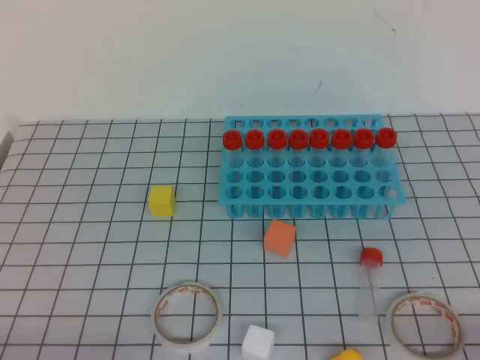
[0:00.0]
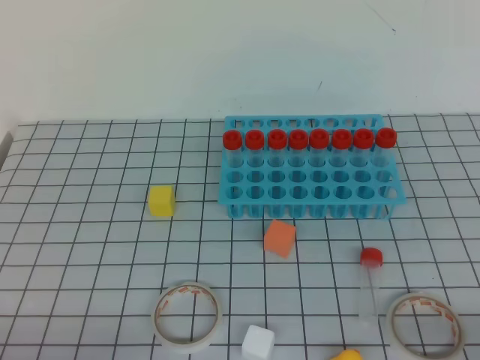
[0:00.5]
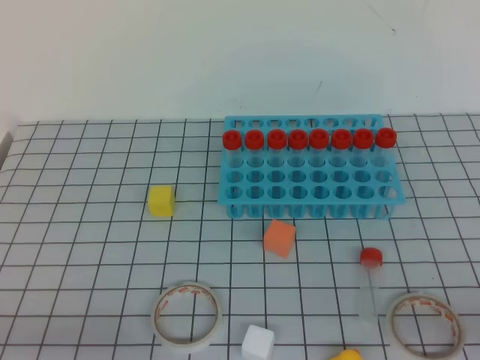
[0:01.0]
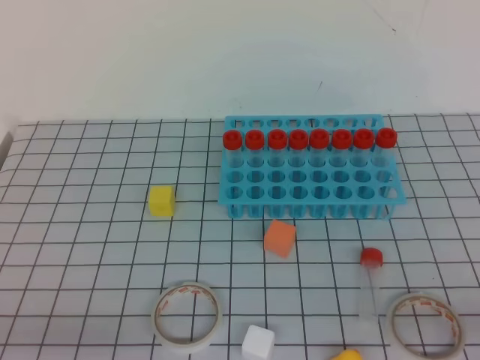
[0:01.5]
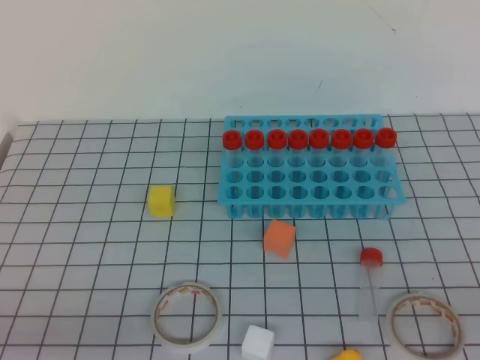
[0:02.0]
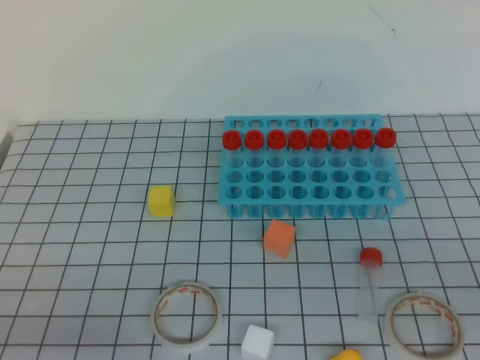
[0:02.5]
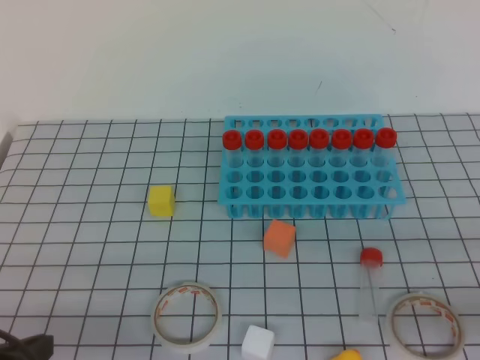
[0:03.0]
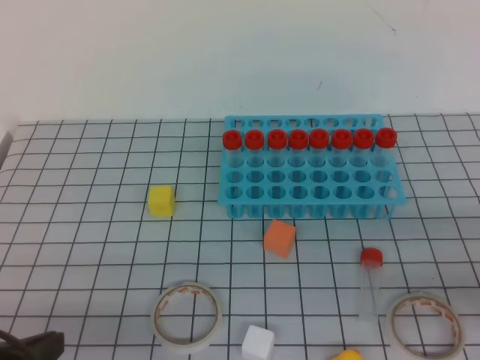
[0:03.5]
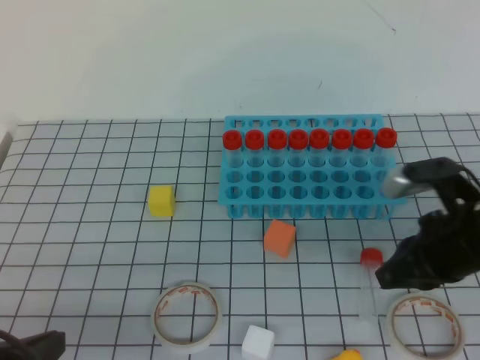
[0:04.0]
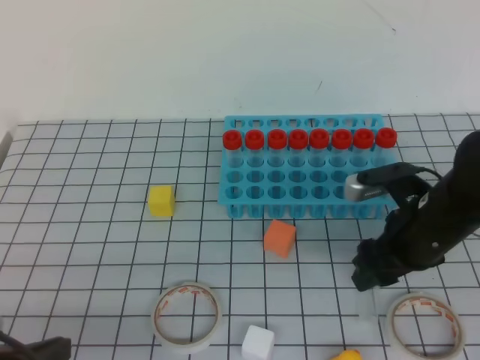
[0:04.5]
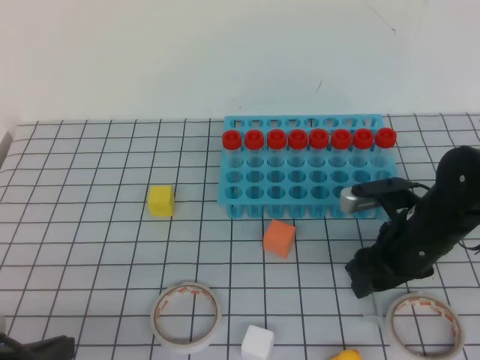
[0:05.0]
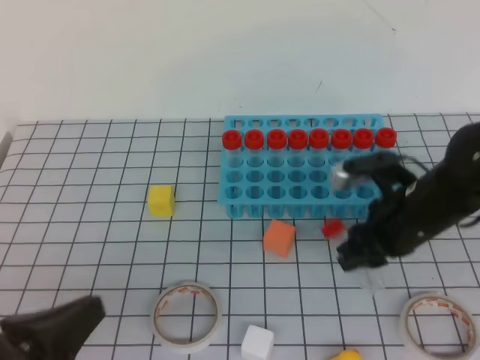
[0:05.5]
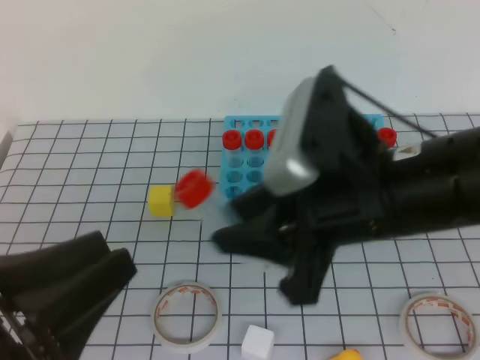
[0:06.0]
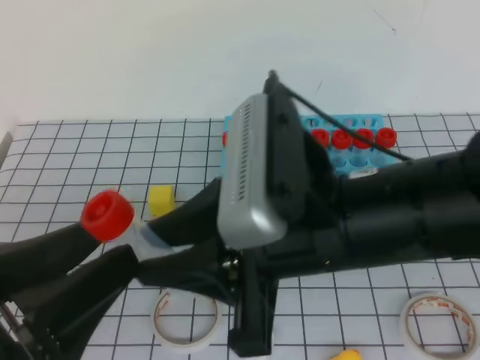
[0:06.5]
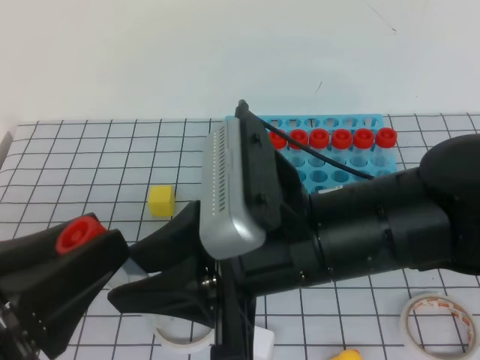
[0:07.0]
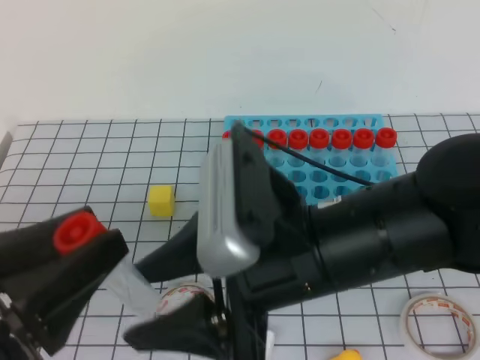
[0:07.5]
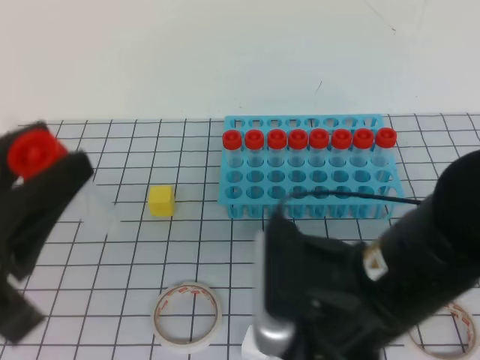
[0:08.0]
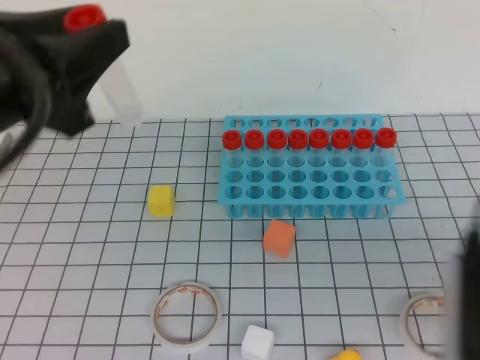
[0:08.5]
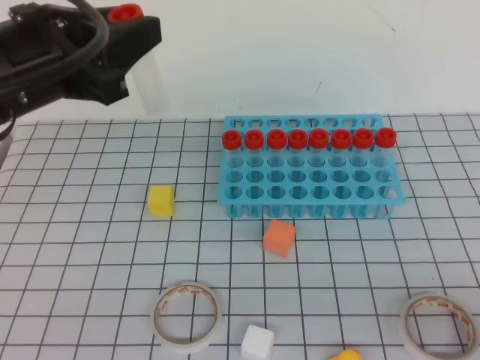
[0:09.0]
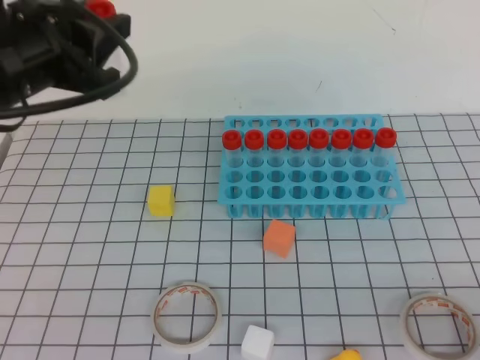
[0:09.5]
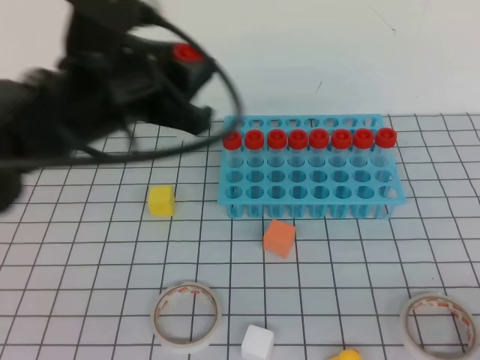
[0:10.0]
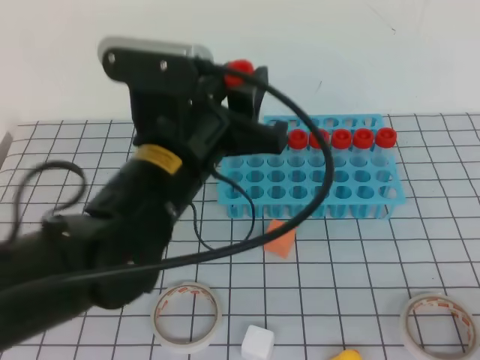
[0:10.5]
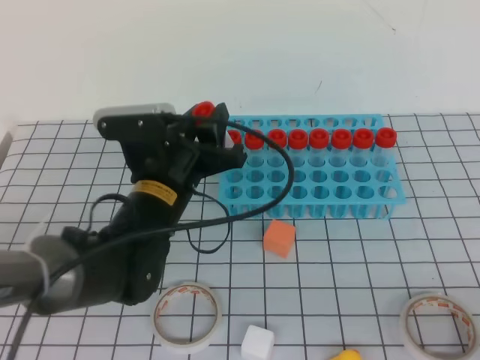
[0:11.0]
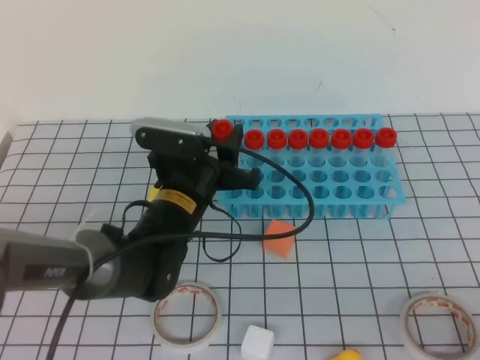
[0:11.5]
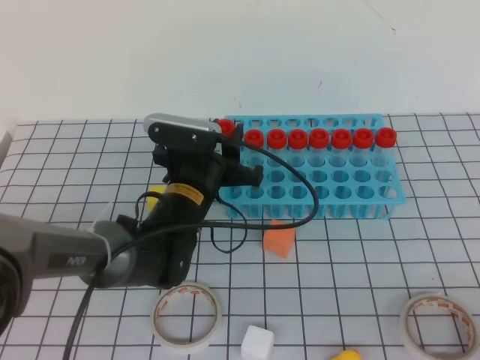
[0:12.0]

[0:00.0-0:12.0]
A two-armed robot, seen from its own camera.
0:02.0 to 0:04.0: The right gripper is displaced forward and to the left by about 25 cm, and closes its fingers; the left gripper is displaced forward by about 5 cm.
0:04.0 to 0:06.0: The right gripper heads to the left and upward, covering approximately 15 cm, and opens up. Meanwhile the left gripper travels upward by roughly 5 cm, and opens.
0:06.0 to 0:08.0: The right gripper is displaced backward by some 5 cm; the left gripper heads upward, covering some 5 cm, and opens and closes again.
0:08.0 to 0:10.0: The left gripper travels forward by roughly 20 cm. Meanwhile the right gripper moves to the right and backward, approximately 25 cm, and closes.
0:10.0 to 0:12.0: The left gripper heads downward and forward, covering approximately 20 cm.

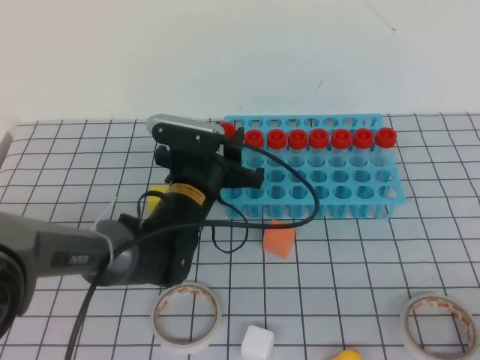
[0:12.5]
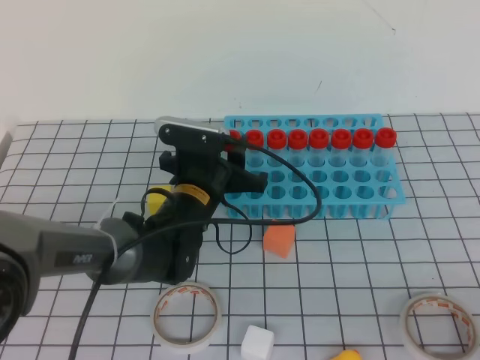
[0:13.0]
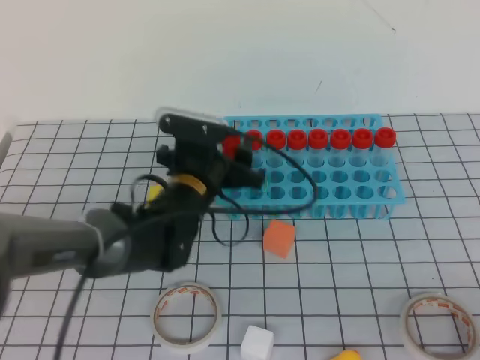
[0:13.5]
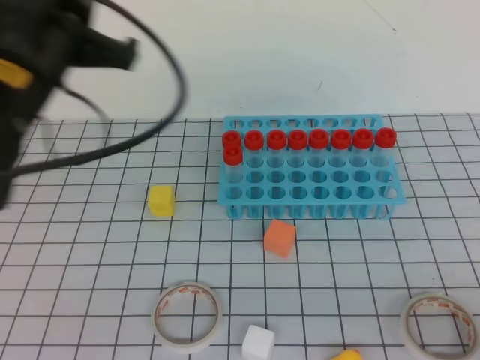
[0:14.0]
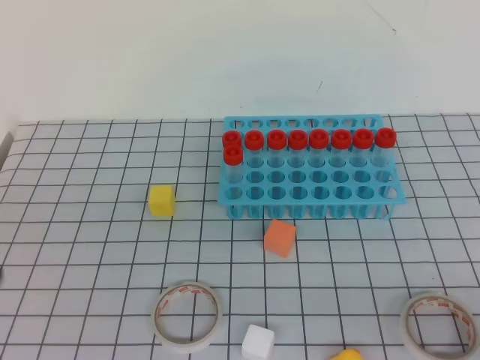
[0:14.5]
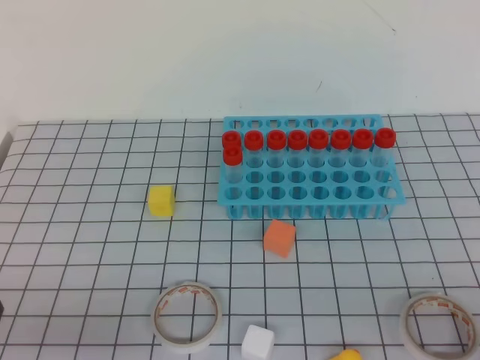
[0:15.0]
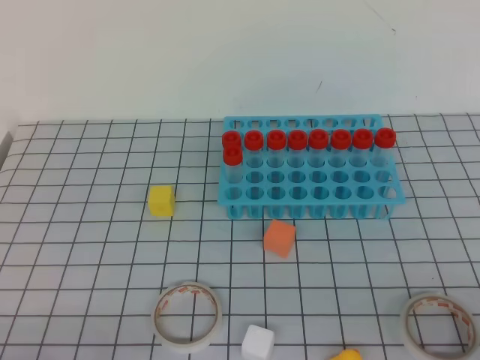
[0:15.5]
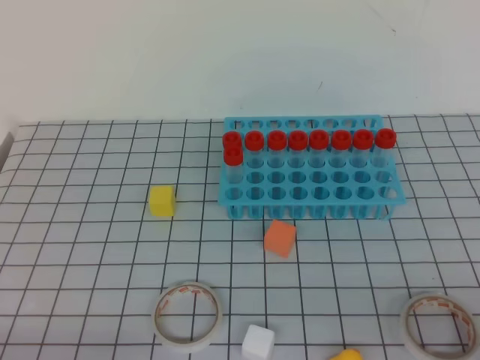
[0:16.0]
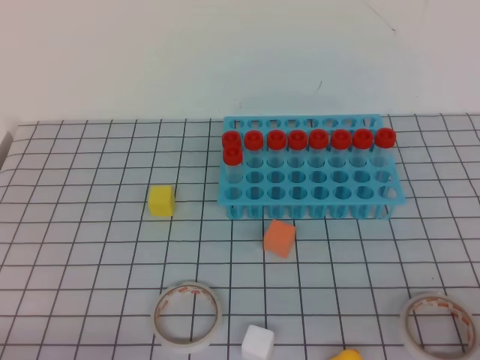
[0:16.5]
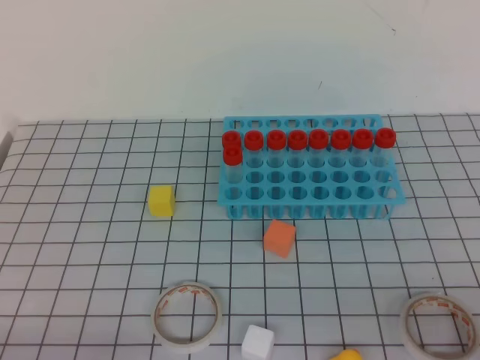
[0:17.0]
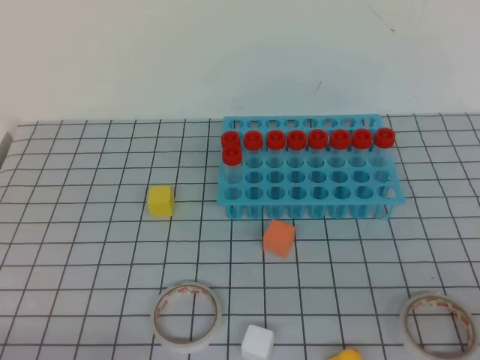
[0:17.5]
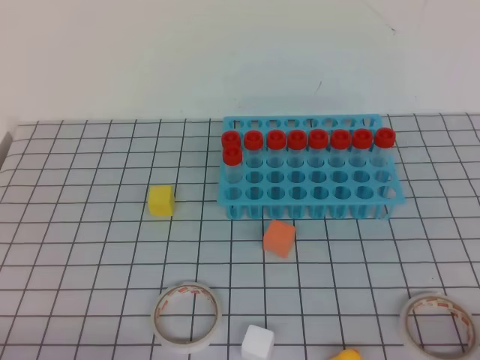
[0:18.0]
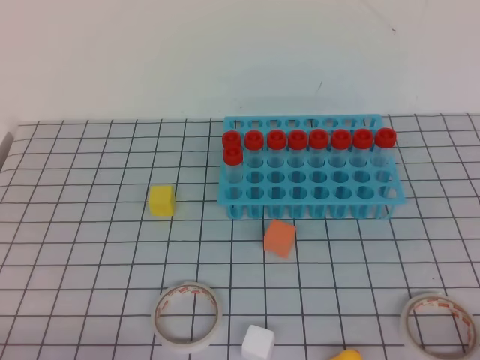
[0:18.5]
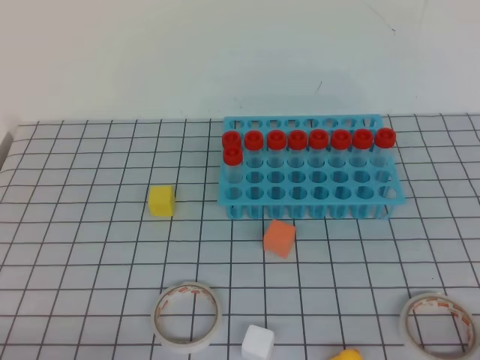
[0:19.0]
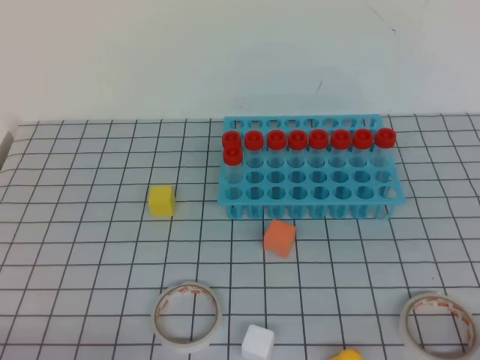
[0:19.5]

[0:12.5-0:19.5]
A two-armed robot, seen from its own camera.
0:12.5 to 0:14.5: The left gripper moves backward, to the left and upward, some 35 cm, and closes.
0:14.5 to 0:16.0: The left gripper moves downward and backward, approximately 20 cm.
